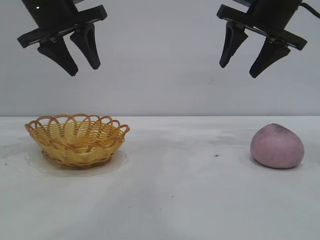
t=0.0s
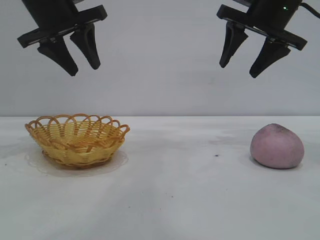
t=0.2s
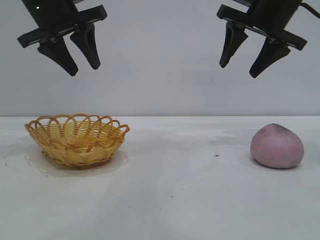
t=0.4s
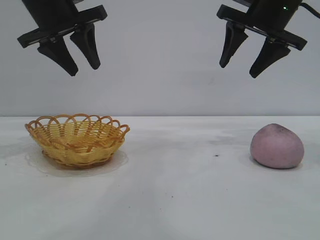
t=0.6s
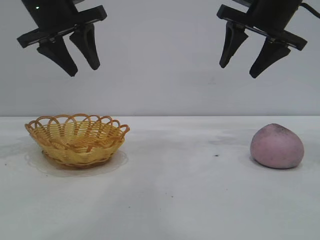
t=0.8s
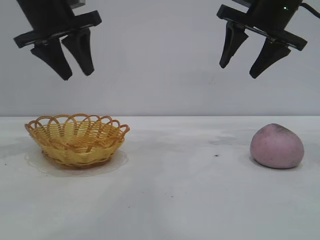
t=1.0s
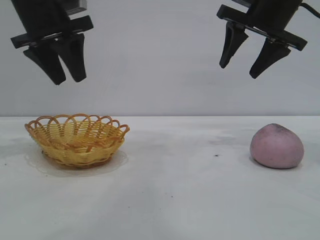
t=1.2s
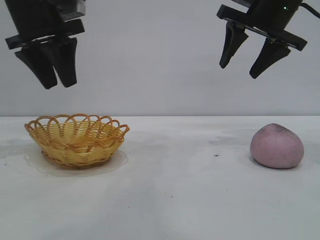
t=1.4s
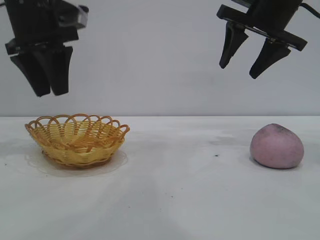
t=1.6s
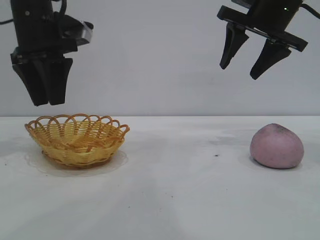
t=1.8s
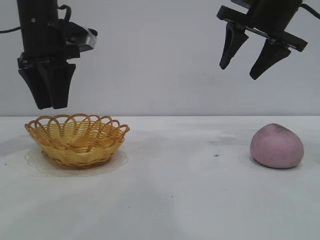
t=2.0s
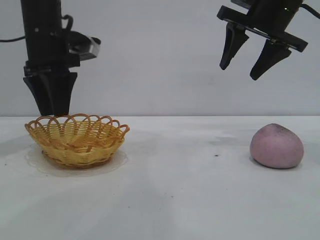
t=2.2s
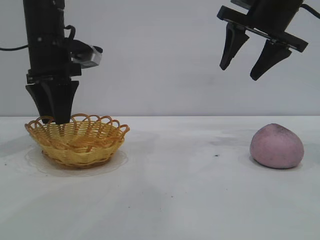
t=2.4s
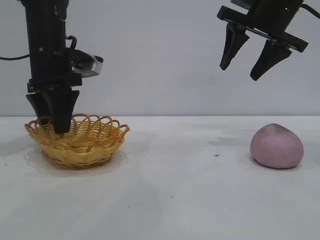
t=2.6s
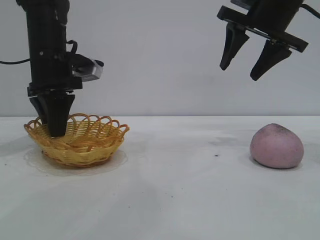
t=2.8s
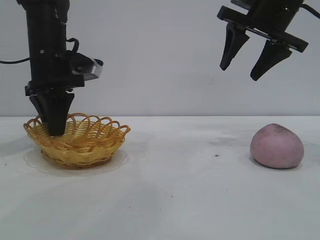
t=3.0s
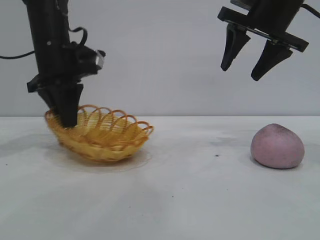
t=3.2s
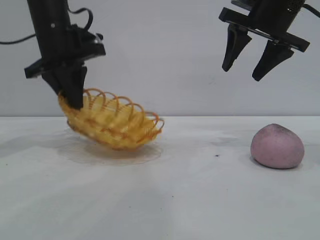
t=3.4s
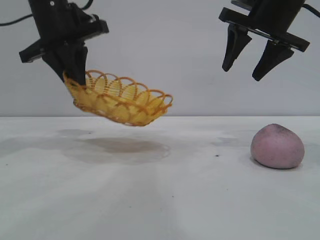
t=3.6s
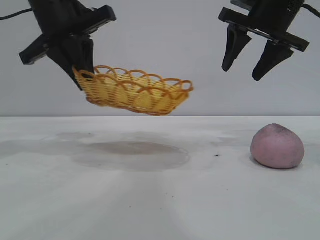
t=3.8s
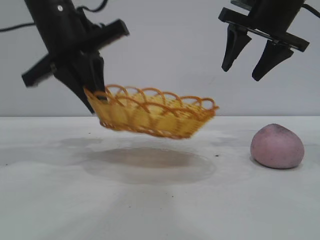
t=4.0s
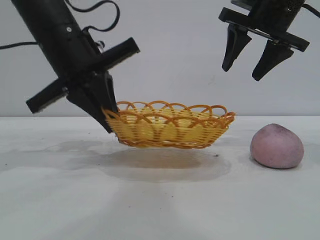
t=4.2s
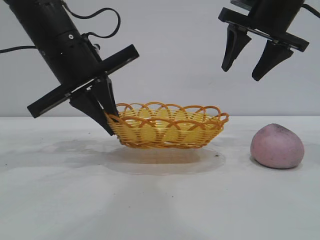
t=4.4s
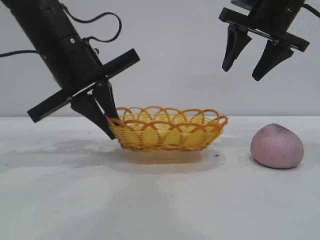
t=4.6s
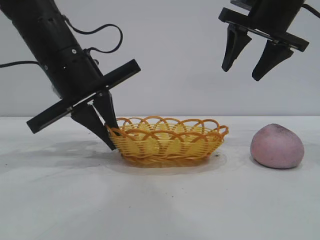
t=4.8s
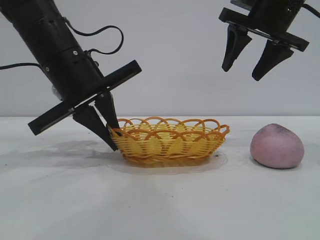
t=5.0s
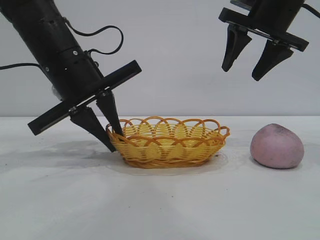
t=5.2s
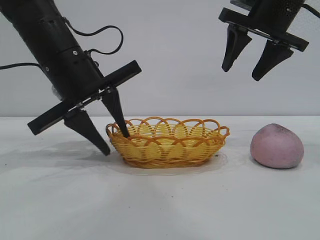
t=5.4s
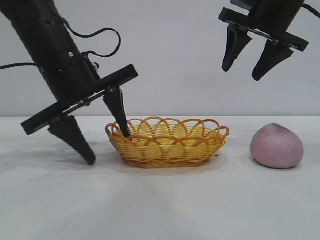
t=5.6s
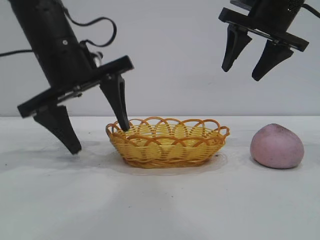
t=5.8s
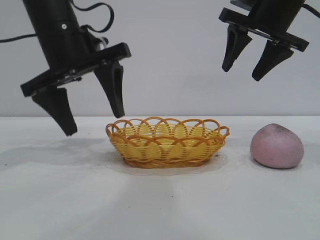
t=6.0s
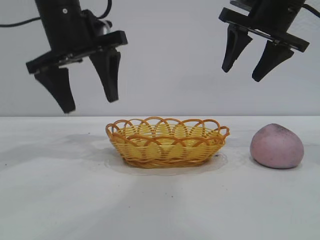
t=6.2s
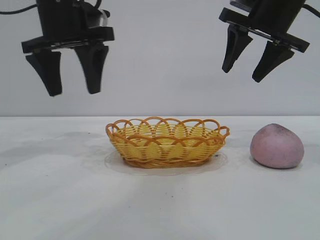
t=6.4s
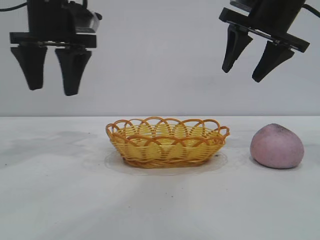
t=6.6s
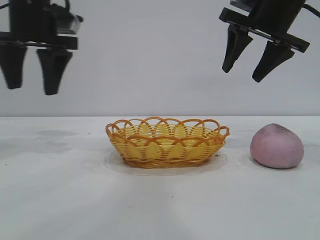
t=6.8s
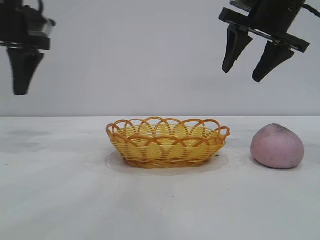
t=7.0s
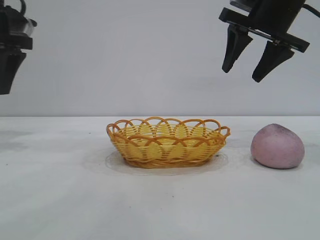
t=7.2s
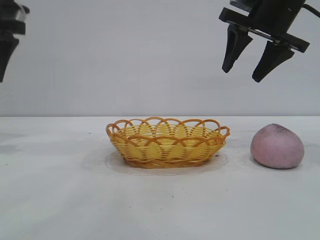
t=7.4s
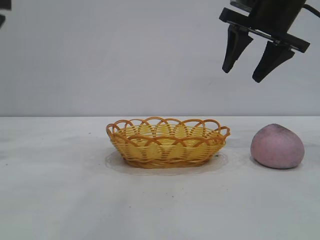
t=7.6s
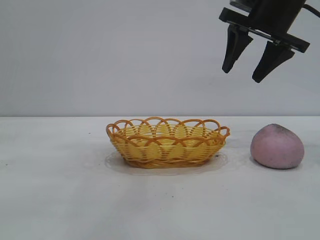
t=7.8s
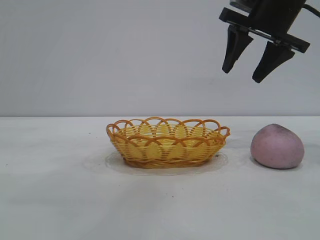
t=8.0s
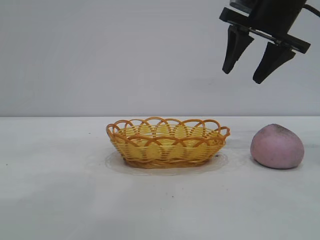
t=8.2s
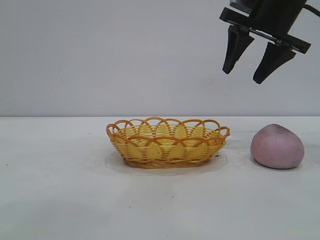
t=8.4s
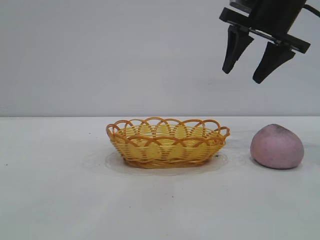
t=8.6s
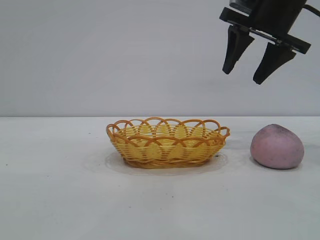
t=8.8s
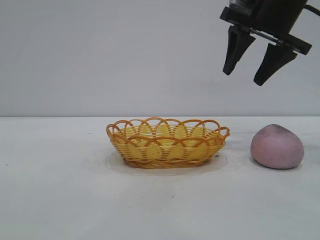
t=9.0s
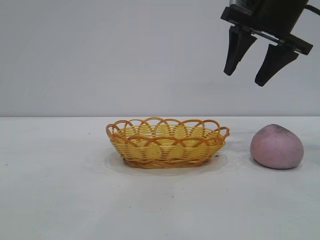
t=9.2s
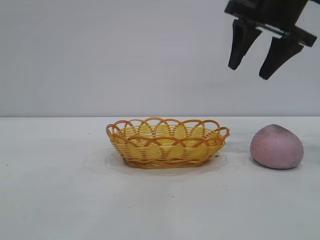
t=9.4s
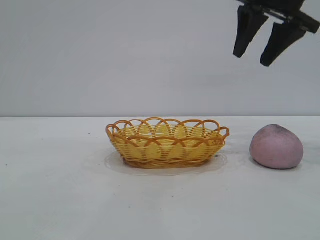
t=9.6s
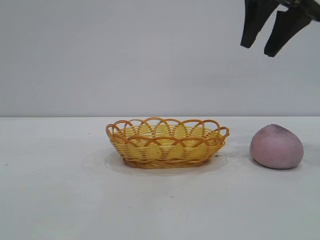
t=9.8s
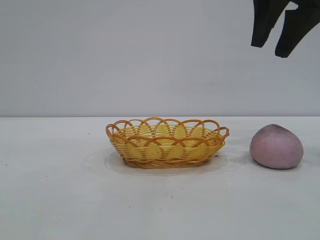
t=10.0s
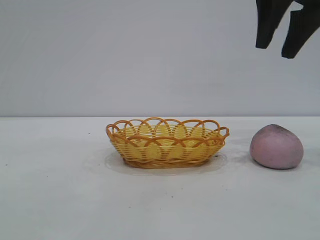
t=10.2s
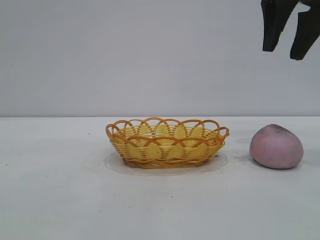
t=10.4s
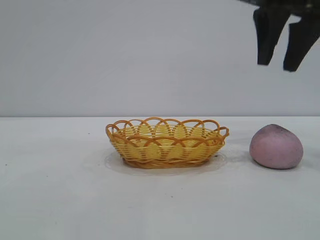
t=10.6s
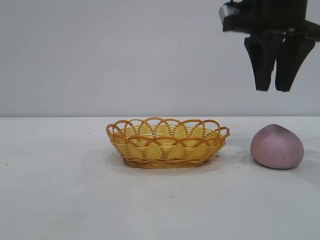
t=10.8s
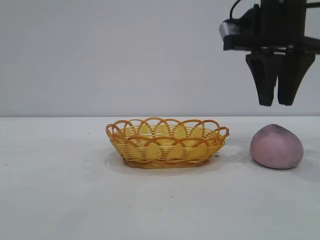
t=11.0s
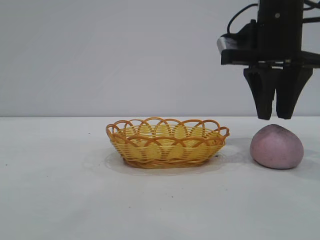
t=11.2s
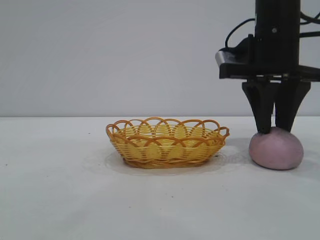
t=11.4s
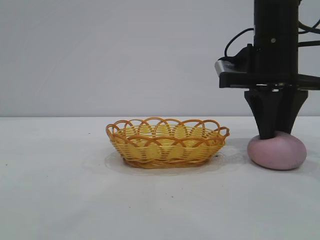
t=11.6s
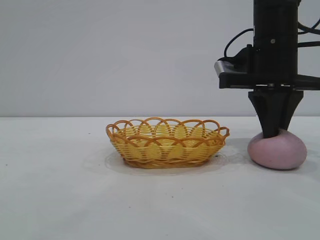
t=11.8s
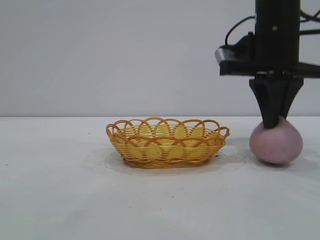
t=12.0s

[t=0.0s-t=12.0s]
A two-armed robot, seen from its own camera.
Task of the whole recording: pick up the peach and put it into the basket.
Step, t=0.0s to t=6.2s: Move the basket to the center of view.

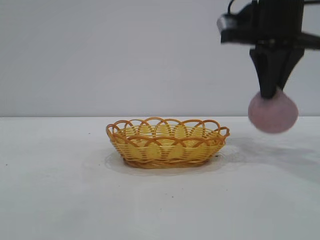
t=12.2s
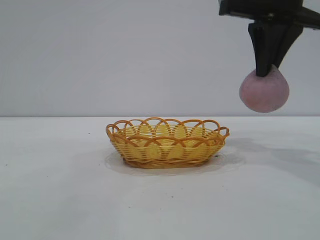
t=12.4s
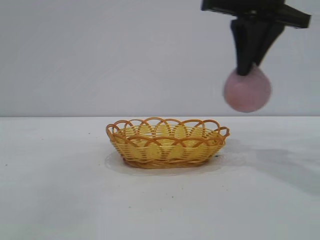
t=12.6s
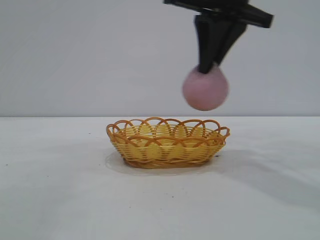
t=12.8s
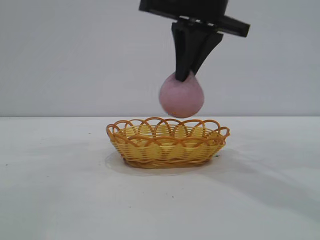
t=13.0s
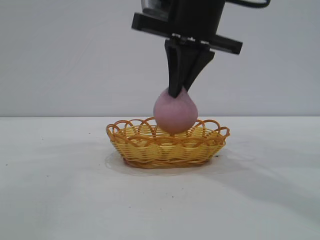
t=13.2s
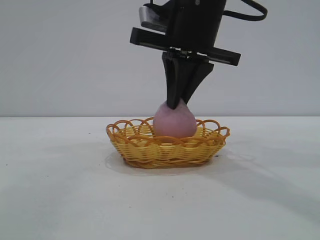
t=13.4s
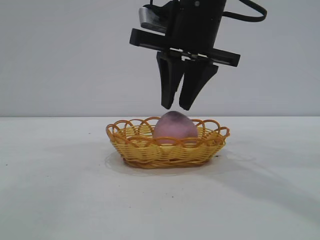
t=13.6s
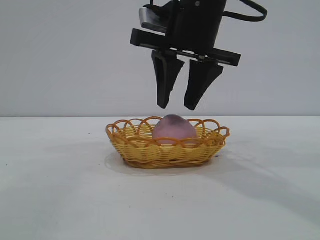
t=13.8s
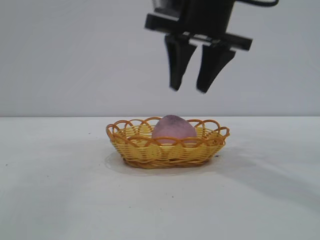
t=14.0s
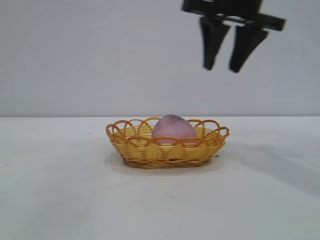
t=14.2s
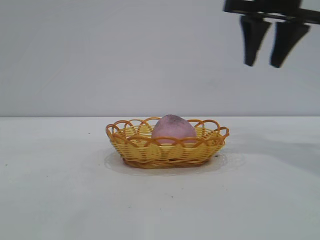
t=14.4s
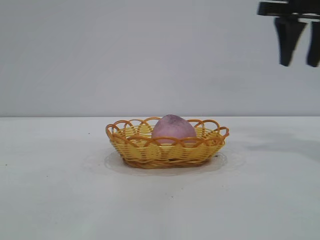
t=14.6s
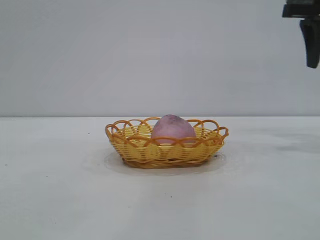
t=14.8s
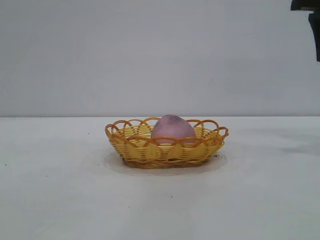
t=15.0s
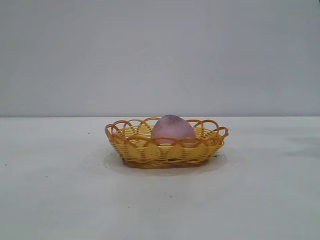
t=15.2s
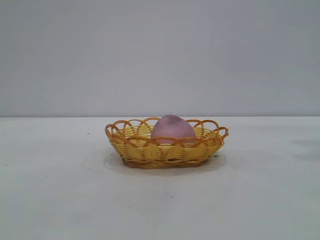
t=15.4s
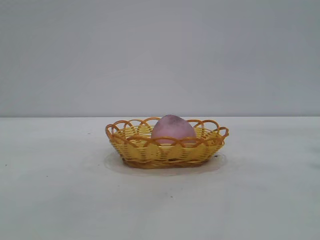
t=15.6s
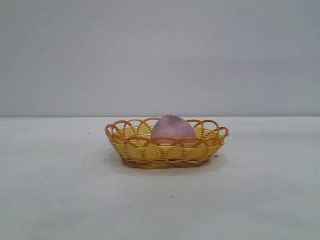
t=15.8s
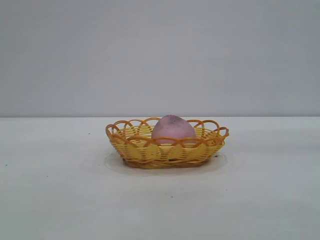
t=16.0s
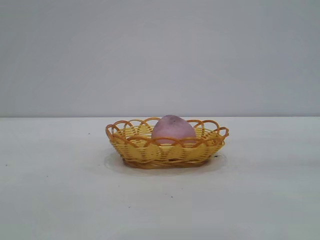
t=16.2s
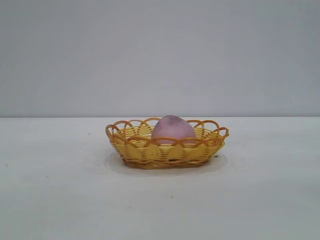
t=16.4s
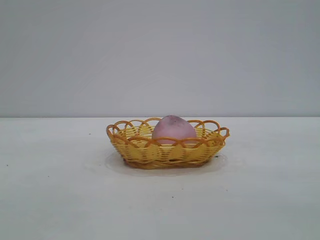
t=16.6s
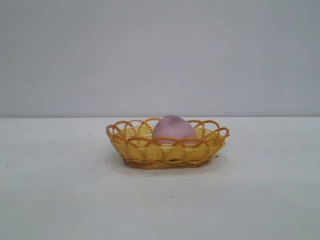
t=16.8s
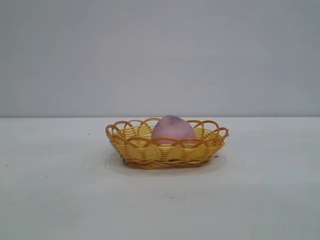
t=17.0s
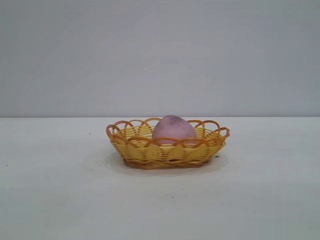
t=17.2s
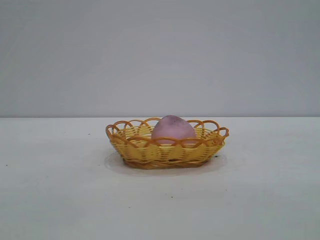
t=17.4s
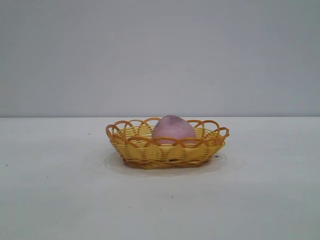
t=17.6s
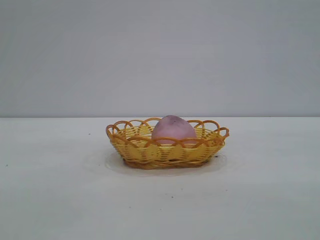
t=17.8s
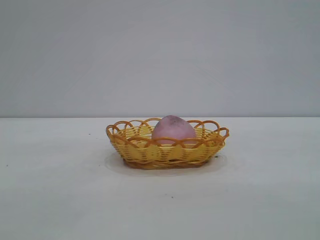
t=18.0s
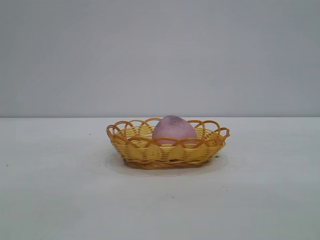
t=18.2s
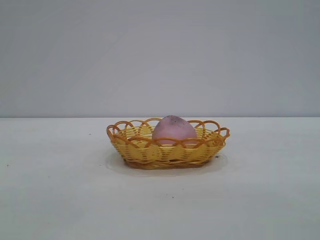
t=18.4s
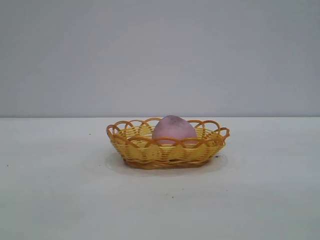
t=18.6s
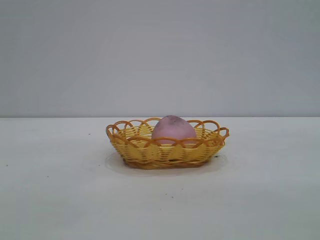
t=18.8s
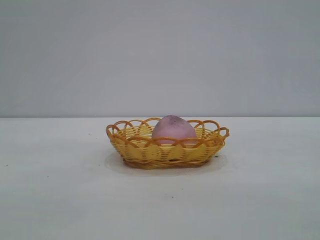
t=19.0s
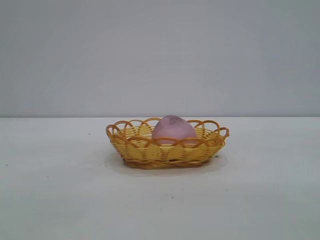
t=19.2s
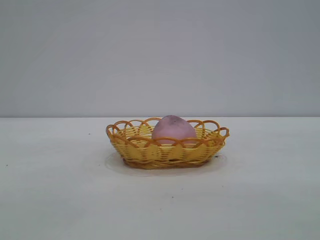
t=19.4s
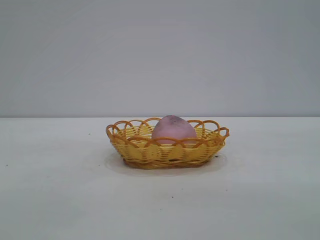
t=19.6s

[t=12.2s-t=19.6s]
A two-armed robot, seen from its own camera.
Task of the whole recording: pick up the peach and put it into the basket.
Step, t=12.4s to t=13.8s: place the peach into the basket.
